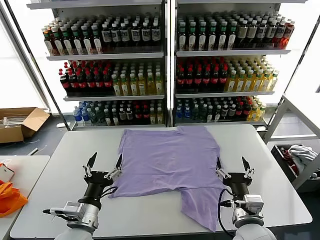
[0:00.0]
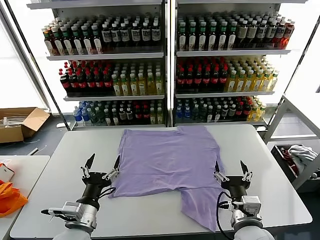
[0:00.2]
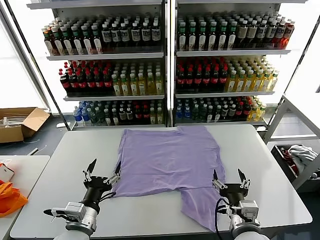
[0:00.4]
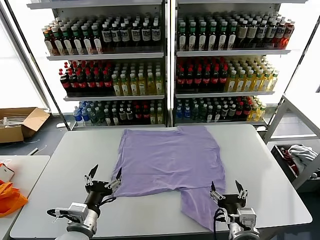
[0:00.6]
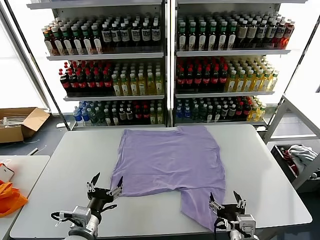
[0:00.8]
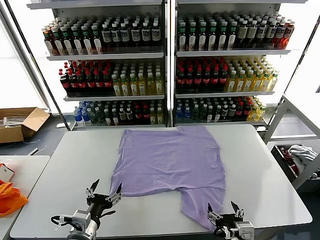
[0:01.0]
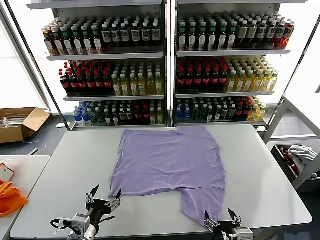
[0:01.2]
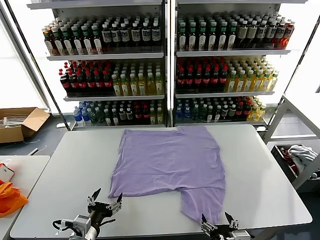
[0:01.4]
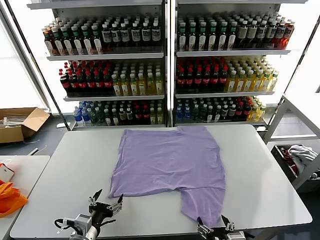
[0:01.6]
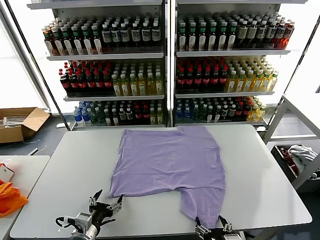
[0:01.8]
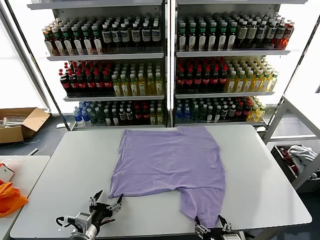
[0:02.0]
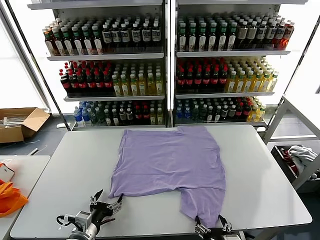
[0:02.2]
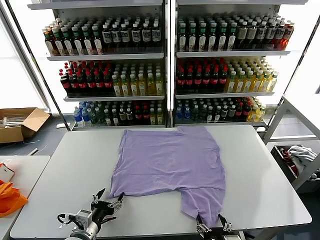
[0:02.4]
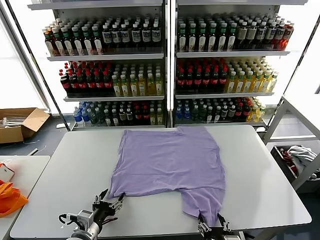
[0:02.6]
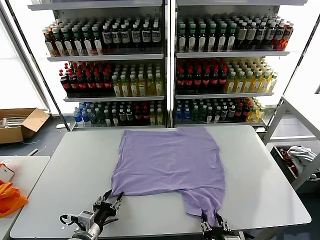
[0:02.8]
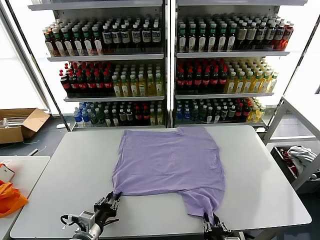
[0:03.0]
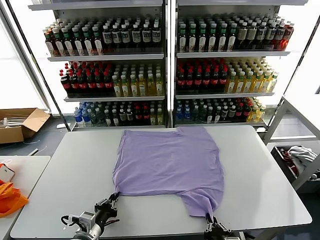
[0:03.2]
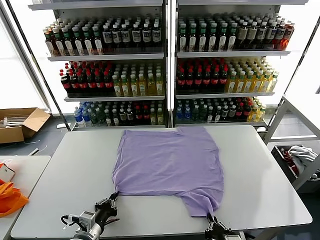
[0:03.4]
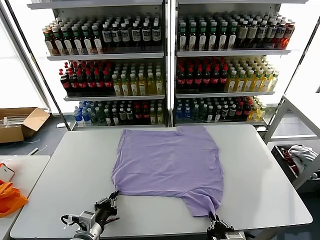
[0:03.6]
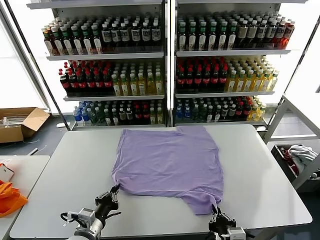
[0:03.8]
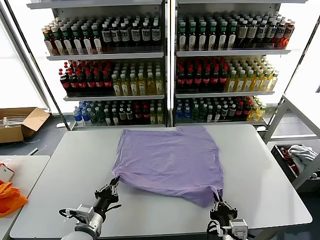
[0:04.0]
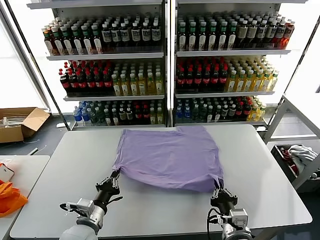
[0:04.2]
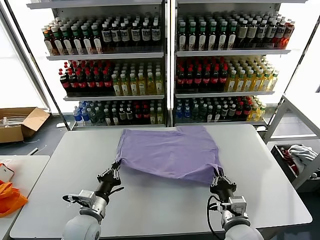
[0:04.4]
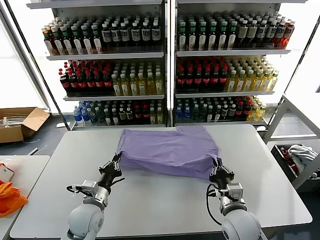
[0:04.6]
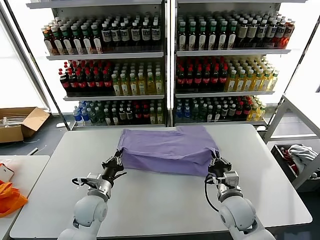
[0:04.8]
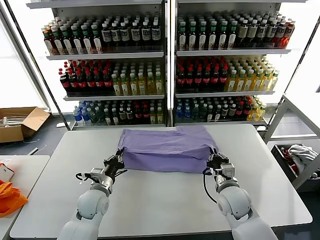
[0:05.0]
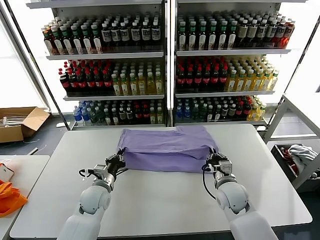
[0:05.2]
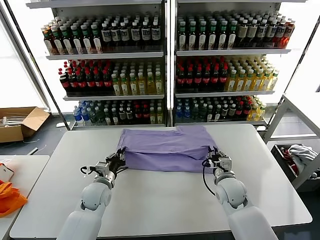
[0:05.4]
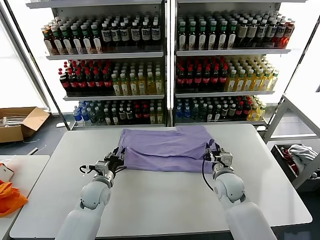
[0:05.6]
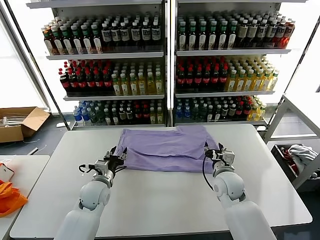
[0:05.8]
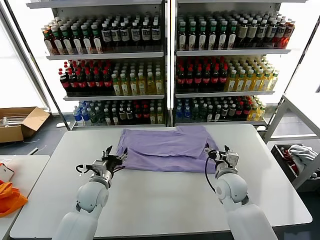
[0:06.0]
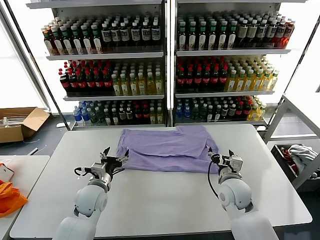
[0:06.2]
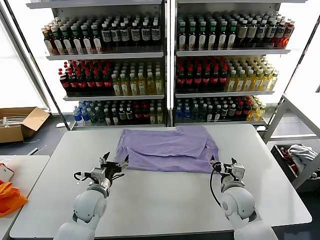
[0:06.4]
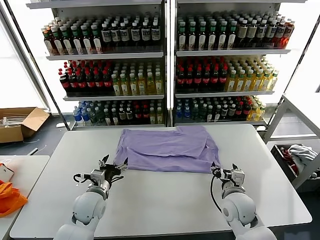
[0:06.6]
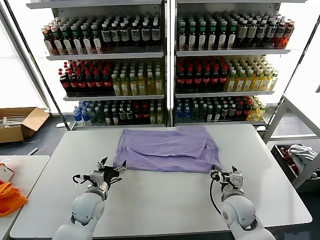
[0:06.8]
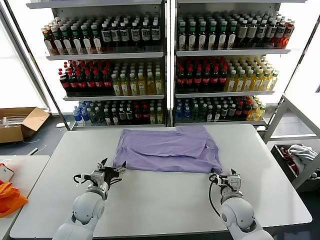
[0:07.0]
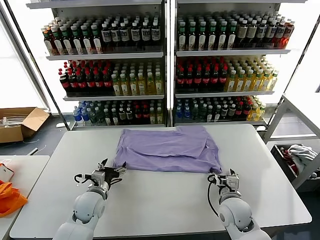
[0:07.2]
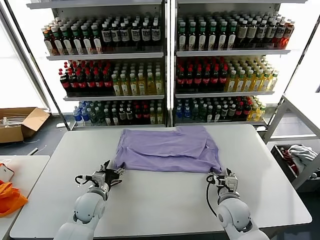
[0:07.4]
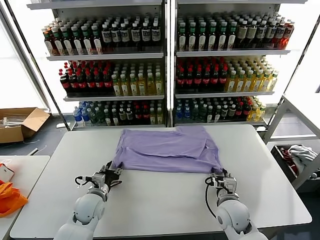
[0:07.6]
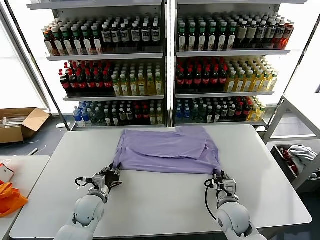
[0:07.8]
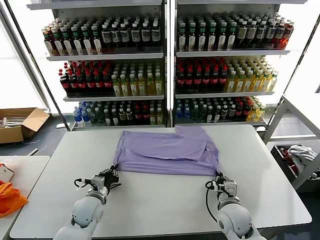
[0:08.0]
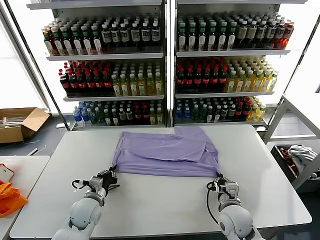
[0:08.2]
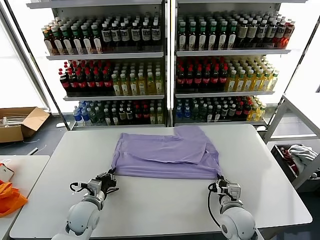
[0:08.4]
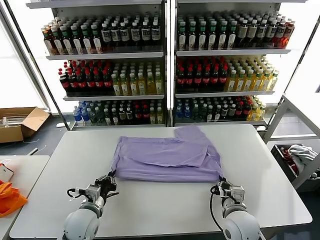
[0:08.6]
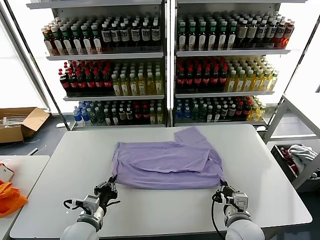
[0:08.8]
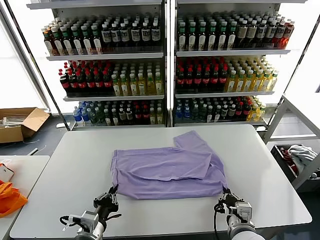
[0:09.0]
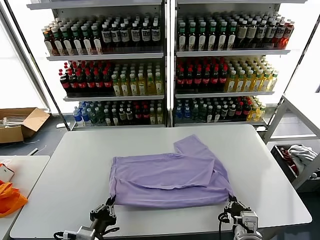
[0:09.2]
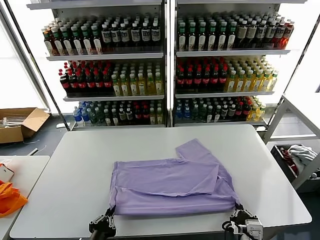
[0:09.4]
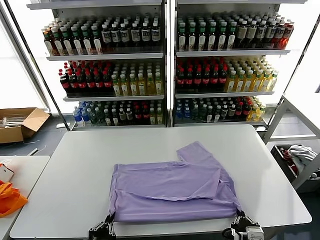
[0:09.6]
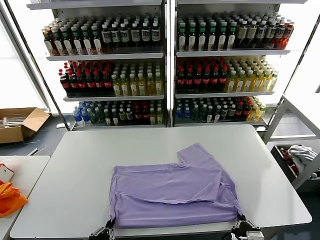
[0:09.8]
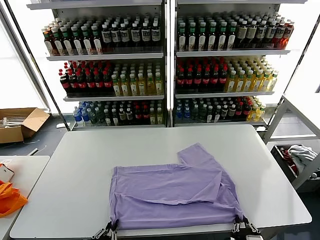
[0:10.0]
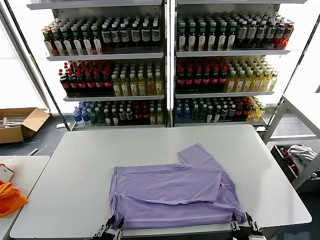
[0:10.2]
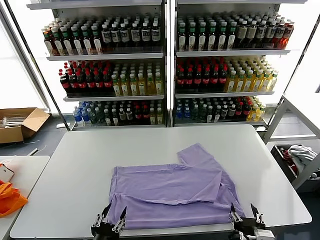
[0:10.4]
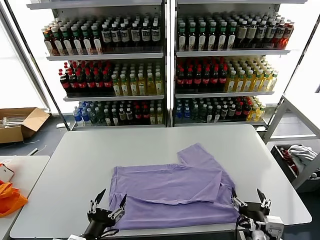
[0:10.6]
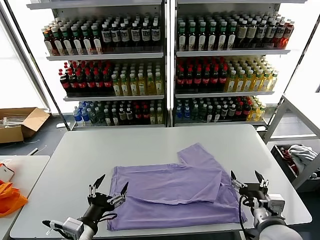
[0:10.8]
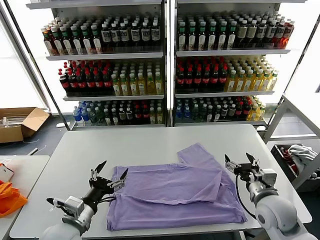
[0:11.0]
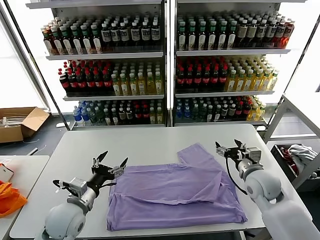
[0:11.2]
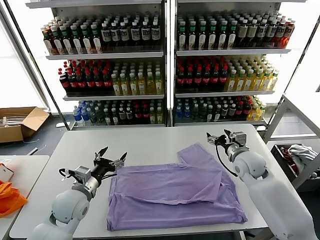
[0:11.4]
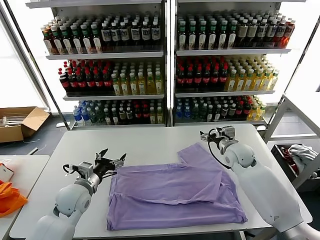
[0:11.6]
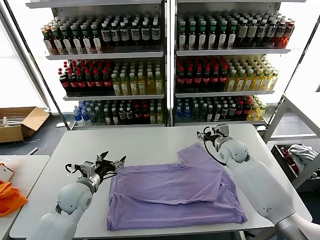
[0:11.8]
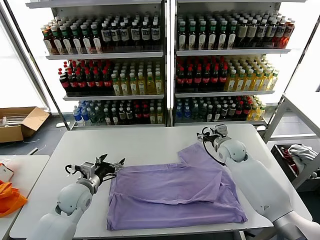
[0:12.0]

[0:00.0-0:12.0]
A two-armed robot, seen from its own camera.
Task of the whole recording: fold and organize the clothes.
Step, 0:00.0 to 0:03.6: use both grippers simultaneously to clamp the lower edge of the clothing fabric.
Step, 0:03.8 to 0:06.0: use both grippers to drag the lower edge of the fabric forward and fold it over the upper edge.
Step, 0:06.2 to 0:10.2: Drag the clothes downward with both gripper.
0:01.6 to 0:03.0: The left gripper closes, while the right gripper closes its fingers.
0:03.0 to 0:04.4: The left gripper heads forward, covering about 5 cm. Meanwhile the right gripper travels forward by roughly 15 cm.
0:04.4 to 0:06.0: Both grippers move forward, approximately 10 cm. The right gripper opens up; the left gripper opens up.
0:06.0 to 0:07.6: The right gripper moves backward and downward, roughly 10 cm, and closes its fingers.
0:07.6 to 0:09.0: The left gripper moves backward, approximately 15 cm, and closes its fingers. The right gripper shifts approximately 15 cm backward and upward, and closes its fingers.
0:09.0 to 0:10.4: The right gripper heads backward, covering approximately 5 cm, and opens its fingers. The left gripper travels backward by approximately 10 cm, and opens its fingers.
0:10.4 to 0:12.0: The two grippers go about 30 cm forward. The left gripper opens its fingers.

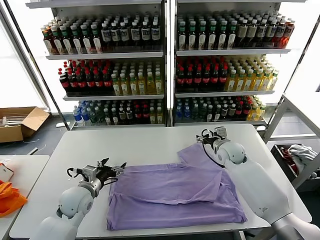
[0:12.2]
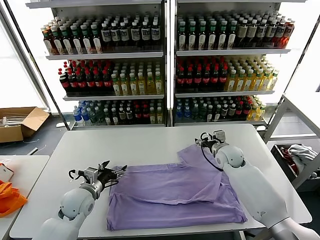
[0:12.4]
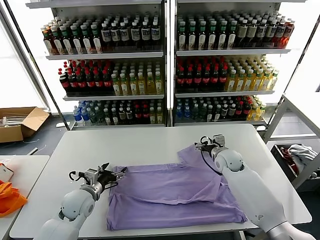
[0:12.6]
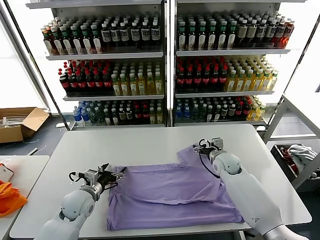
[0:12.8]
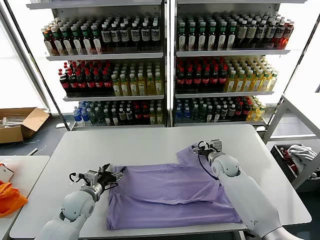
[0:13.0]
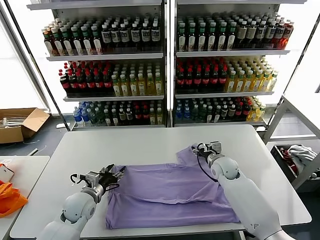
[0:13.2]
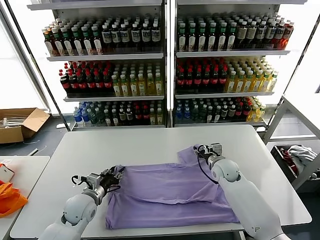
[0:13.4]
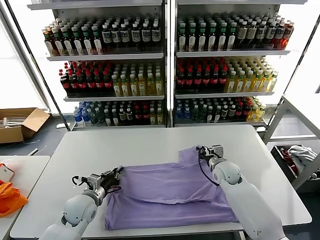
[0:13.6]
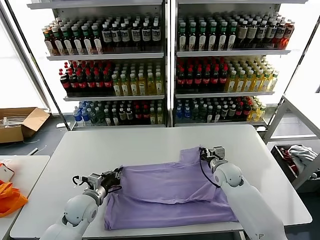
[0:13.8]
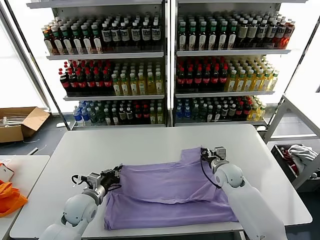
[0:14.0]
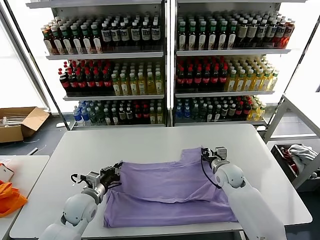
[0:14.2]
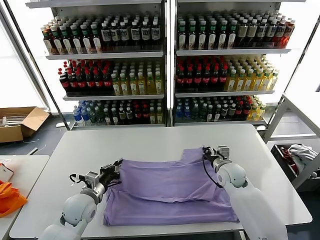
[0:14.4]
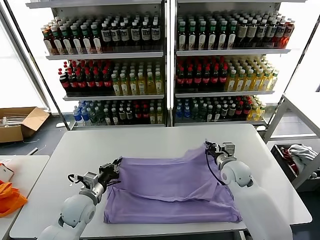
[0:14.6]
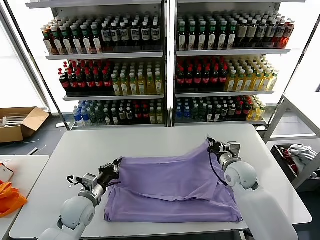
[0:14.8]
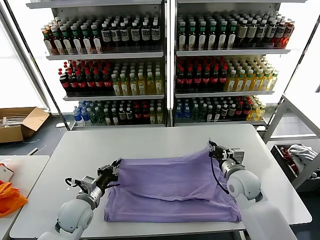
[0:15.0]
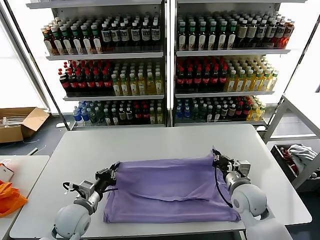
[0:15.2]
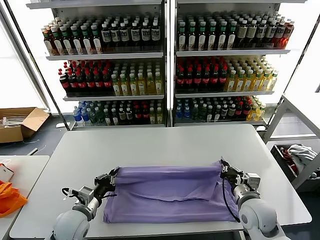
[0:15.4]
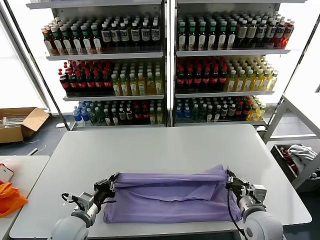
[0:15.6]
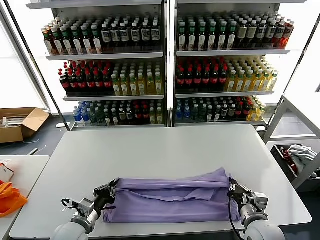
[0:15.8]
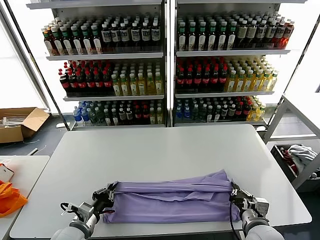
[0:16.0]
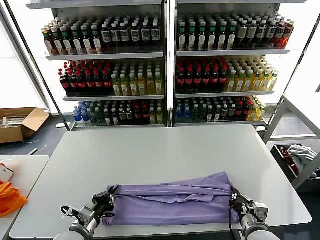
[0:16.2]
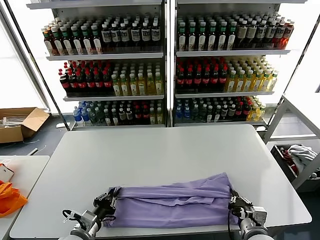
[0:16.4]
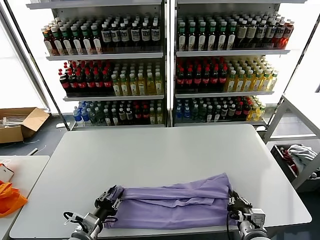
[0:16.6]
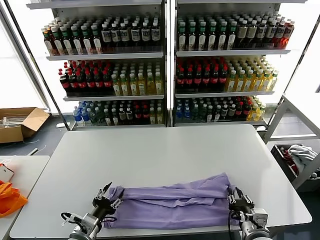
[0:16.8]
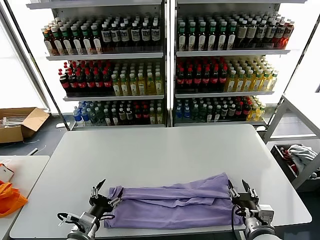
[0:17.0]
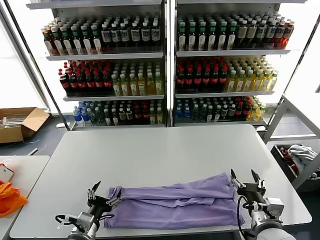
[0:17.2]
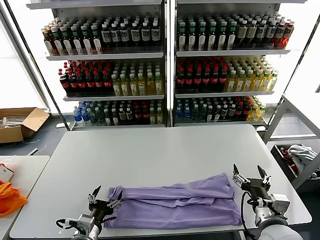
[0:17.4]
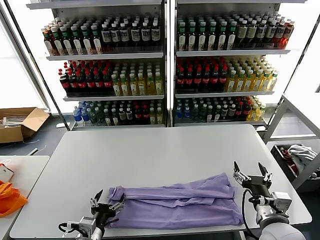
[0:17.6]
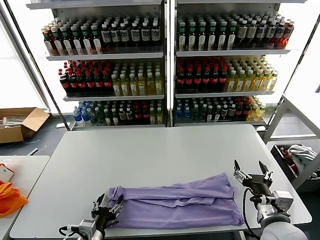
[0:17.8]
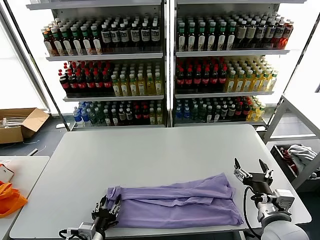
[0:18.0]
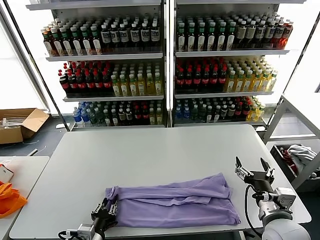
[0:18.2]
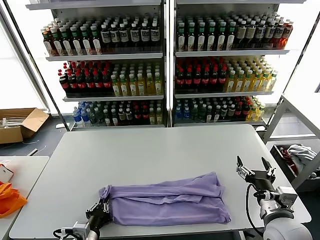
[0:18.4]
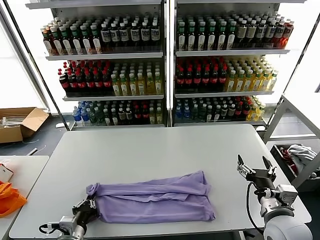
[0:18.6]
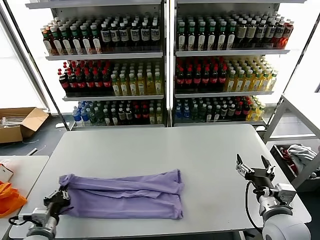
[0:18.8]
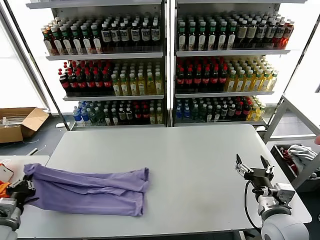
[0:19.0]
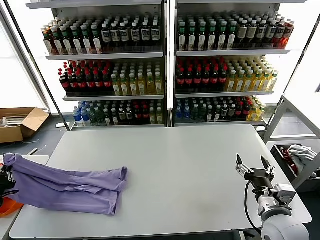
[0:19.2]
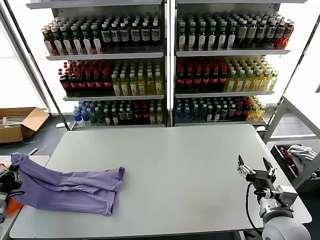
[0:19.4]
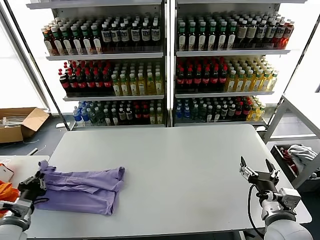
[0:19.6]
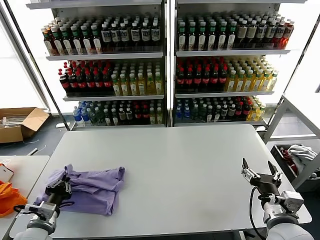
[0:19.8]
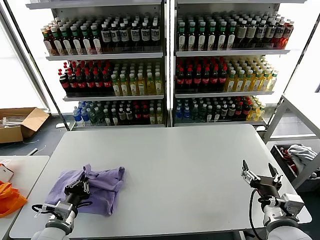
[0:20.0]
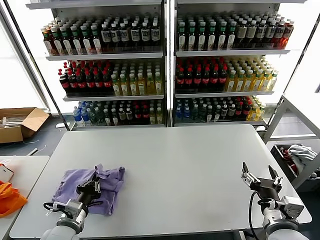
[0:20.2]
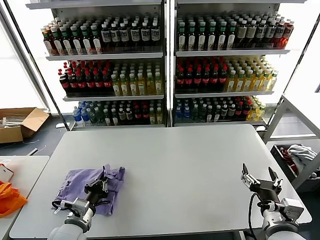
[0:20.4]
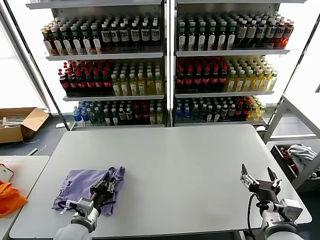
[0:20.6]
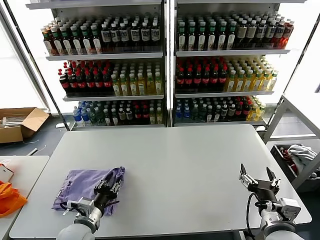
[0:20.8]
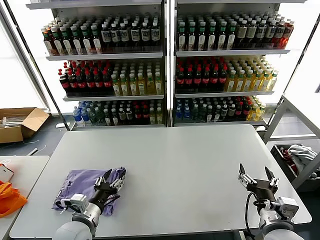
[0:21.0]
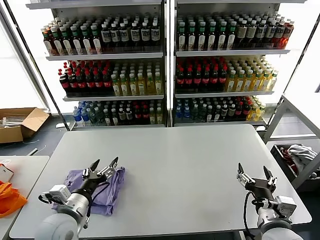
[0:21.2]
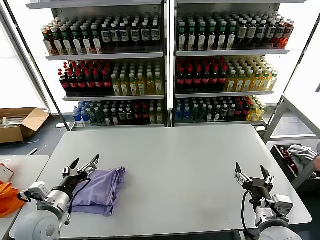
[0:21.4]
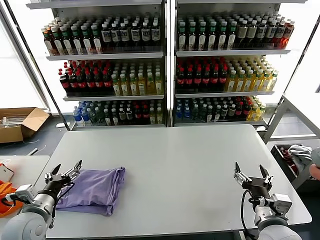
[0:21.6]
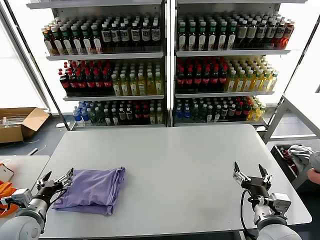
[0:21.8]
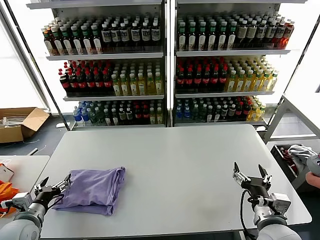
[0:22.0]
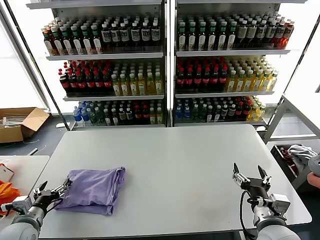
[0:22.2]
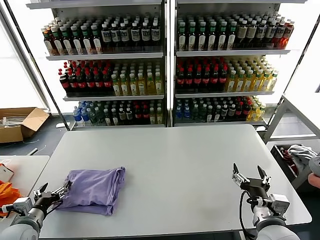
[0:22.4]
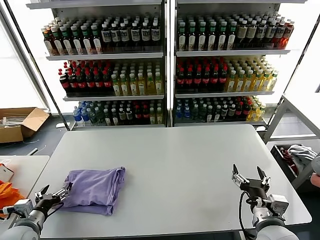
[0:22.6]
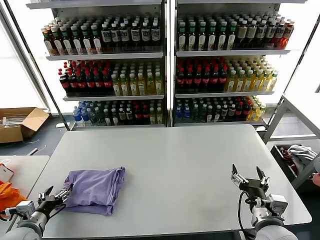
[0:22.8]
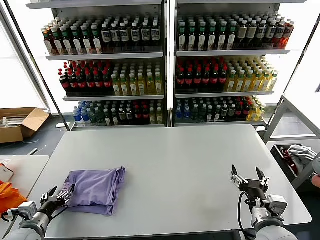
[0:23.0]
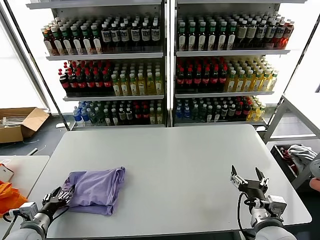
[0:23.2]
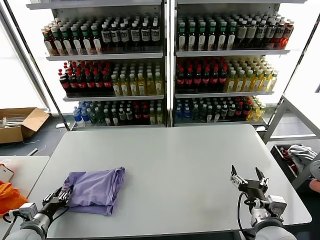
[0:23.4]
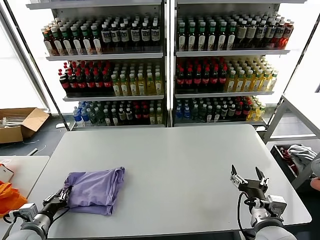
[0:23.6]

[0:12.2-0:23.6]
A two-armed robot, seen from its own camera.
Task of the whole recording: fold and organize the clothes.
Step, 0:12.2 to 0:14.4: use both grippers simultaneously to clamp the upper edge of the clothing fabric.
Step, 0:14.6 to 0:17.0: use both grippers to drag the upper edge of the fabric backward and fold it over the lower edge.
Step, 0:17.2 to 0:18.4: use the left gripper to clamp the left edge of the fabric.
Step, 0:18.6 to 0:21.0: use the left gripper to drag the left edge of the fabric to the left and folds it over the right edge.
0:12.2 to 0:13.6: The right gripper travels downward by some 5 cm, and closes. The left gripper closes.
0:13.6 to 0:15.0: The right gripper is displaced backward and upward by roughly 10 cm.
0:15.0 to 0:16.4: The right gripper is displaced backward by some 15 cm. The left gripper is displaced backward by roughly 10 cm.
0:16.4 to 0:17.8: The left gripper moves some 5 cm, and opens its fingers. Meanwhile the right gripper travels upward by roughly 10 cm, and opens.
0:17.8 to 0:19.4: The left gripper heads to the left, covering approximately 25 cm, and closes its fingers.
0:19.4 to 0:20.8: The left gripper shifts approximately 25 cm to the right, and opens up.
0:20.8 to 0:22.2: The left gripper goes about 15 cm to the left, and opens.
0:22.2 to 0:23.6: The left gripper closes.
